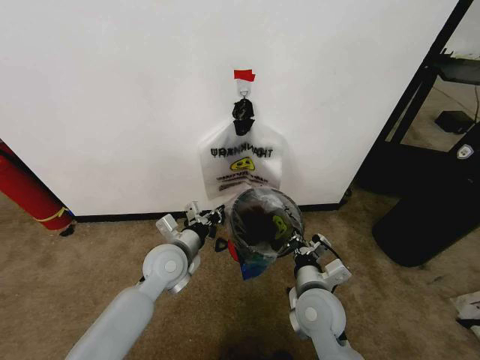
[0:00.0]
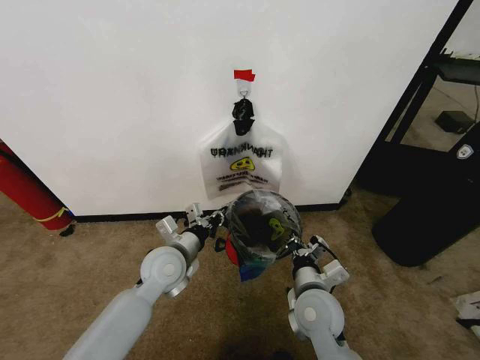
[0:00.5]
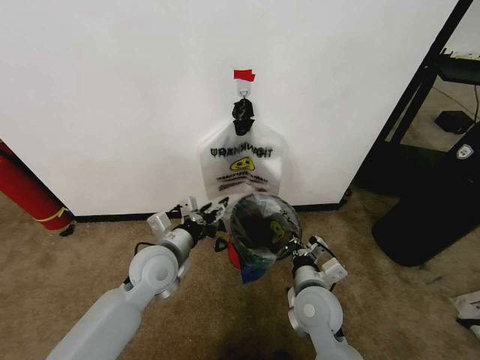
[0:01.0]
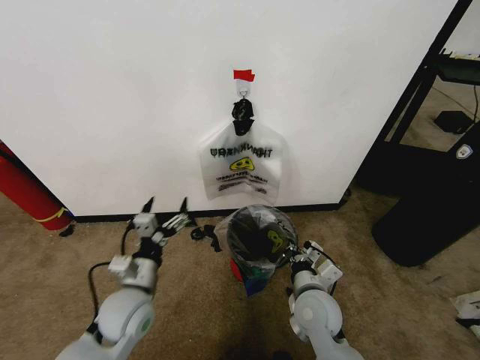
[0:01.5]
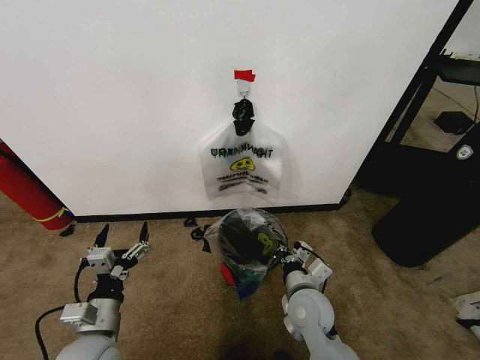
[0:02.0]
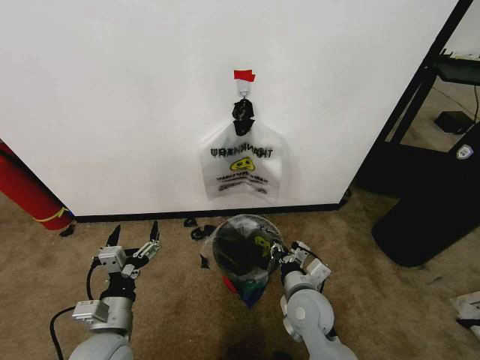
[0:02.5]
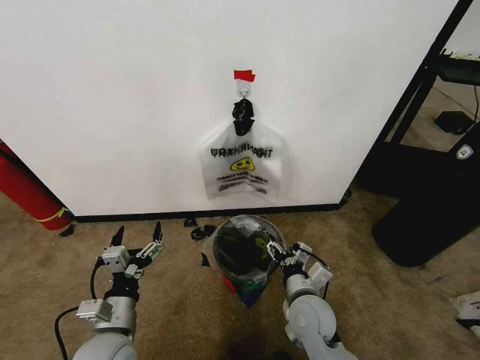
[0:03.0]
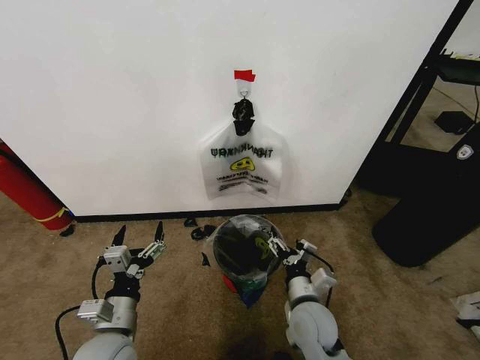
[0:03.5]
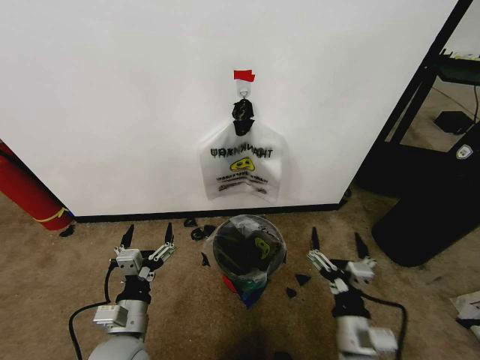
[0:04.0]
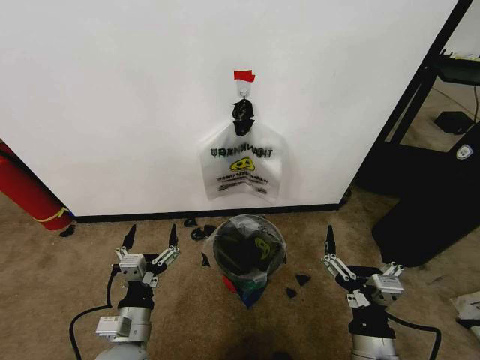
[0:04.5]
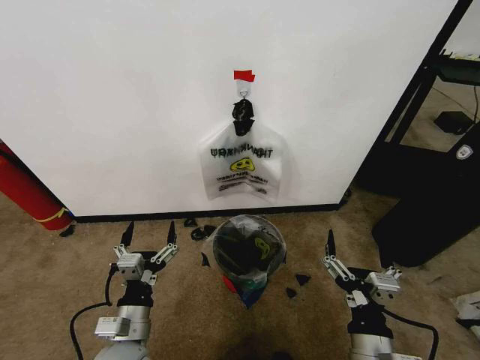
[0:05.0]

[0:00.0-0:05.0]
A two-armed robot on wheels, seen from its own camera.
Task of the whole recording: Pick up the garbage bag from the wall and place it over the trash bin.
0:00.0 to 0:02.5: The left gripper moves backward and to the left, some 20 cm, and opens up.
0:02.5 to 0:05.0: The right gripper is displaced backward by roughly 15 cm, and opens its fingers.

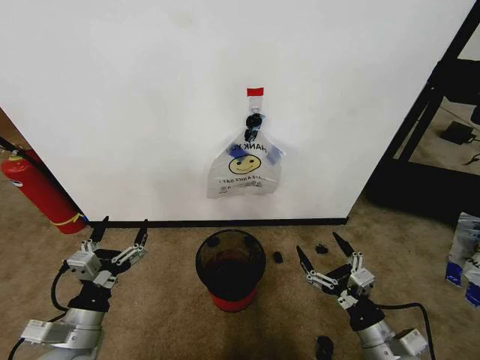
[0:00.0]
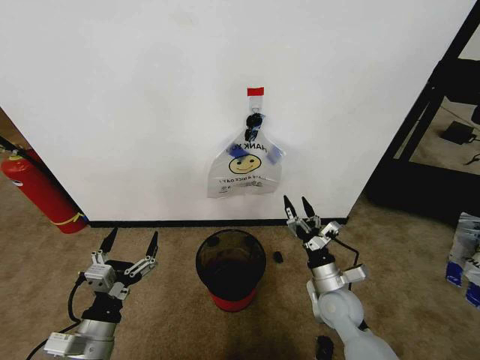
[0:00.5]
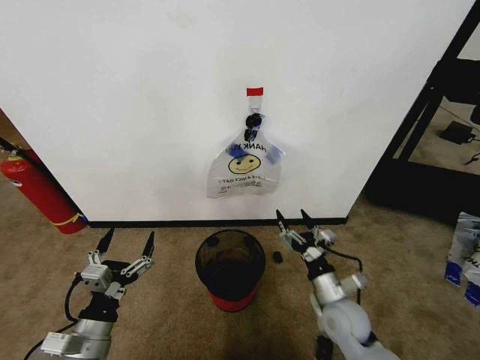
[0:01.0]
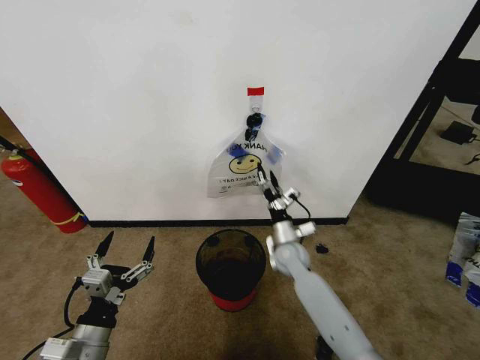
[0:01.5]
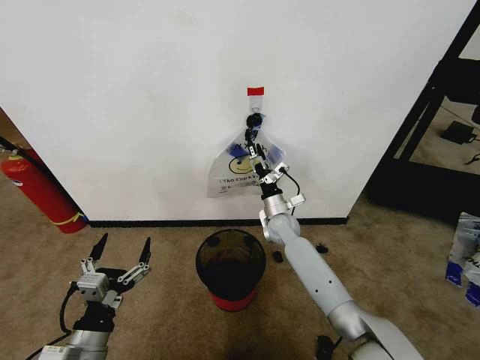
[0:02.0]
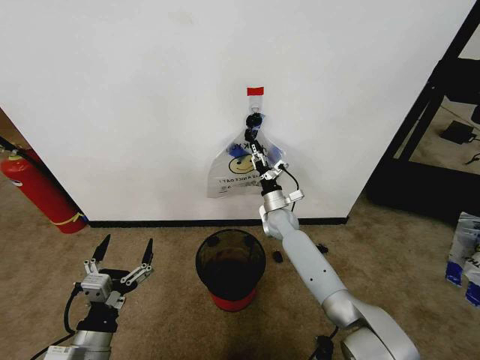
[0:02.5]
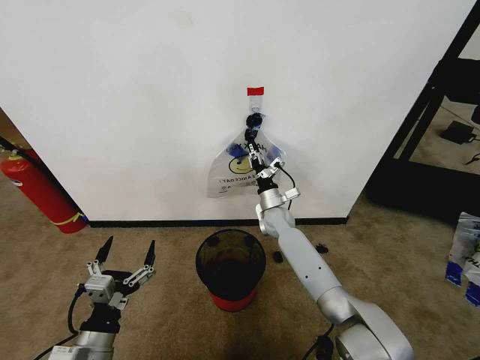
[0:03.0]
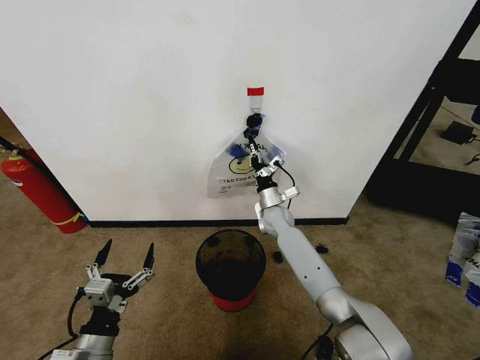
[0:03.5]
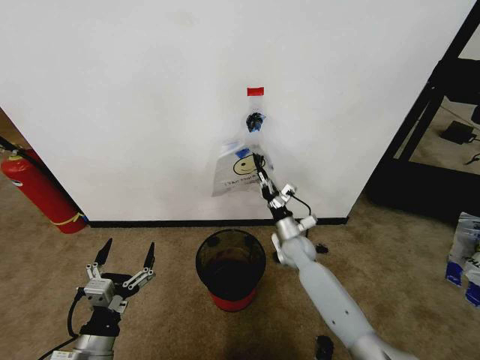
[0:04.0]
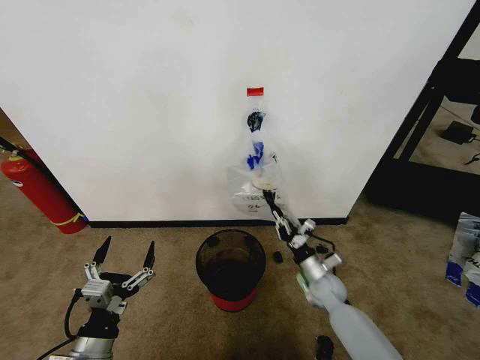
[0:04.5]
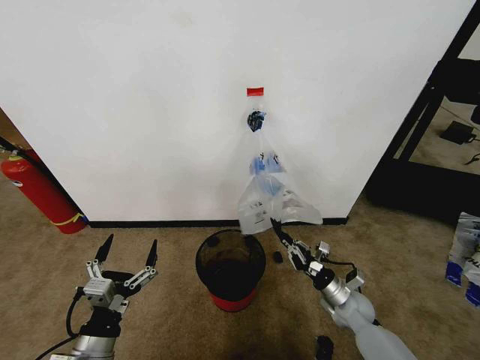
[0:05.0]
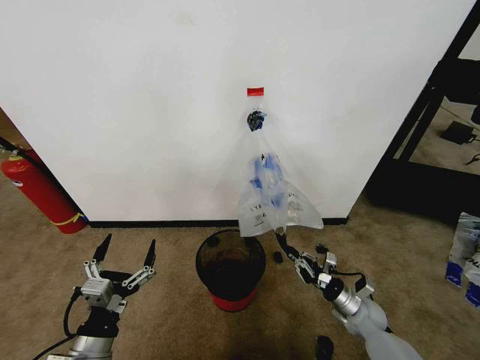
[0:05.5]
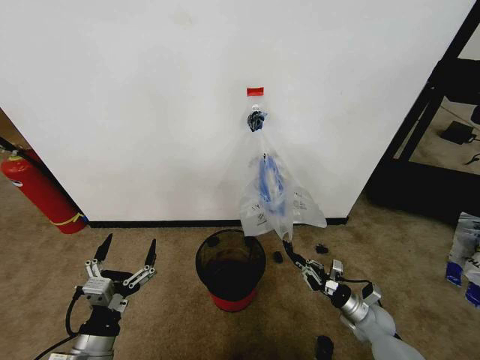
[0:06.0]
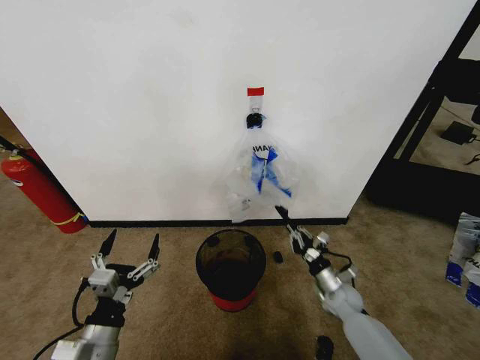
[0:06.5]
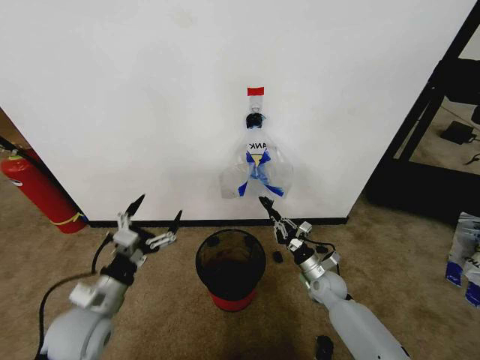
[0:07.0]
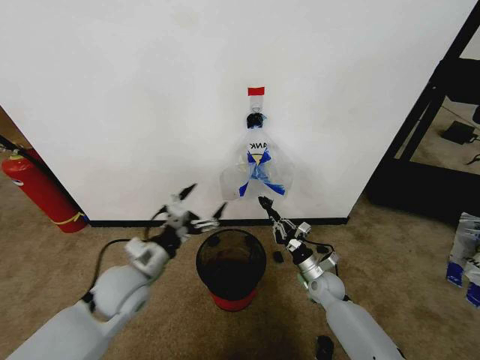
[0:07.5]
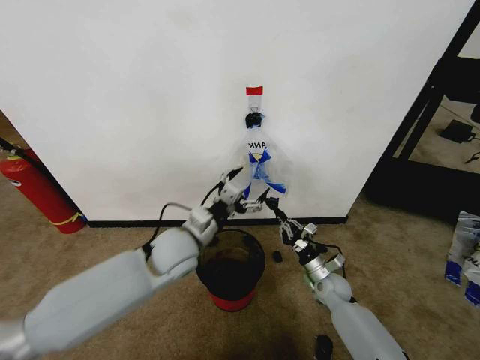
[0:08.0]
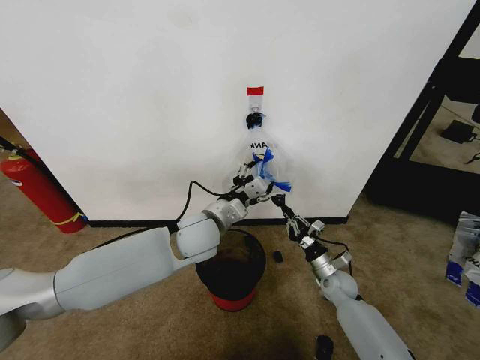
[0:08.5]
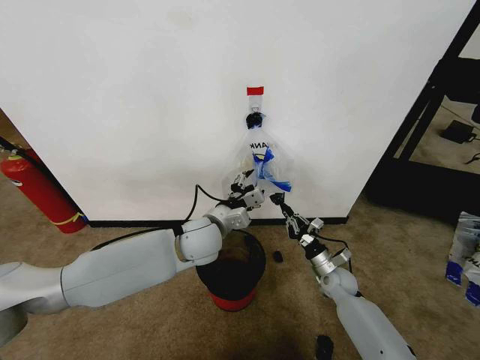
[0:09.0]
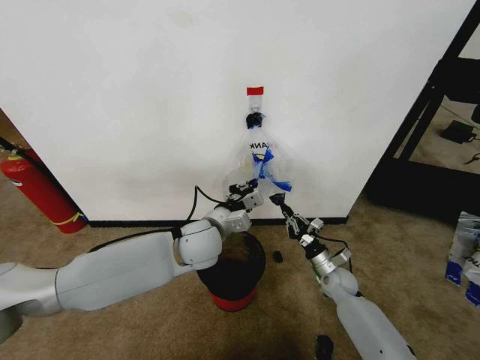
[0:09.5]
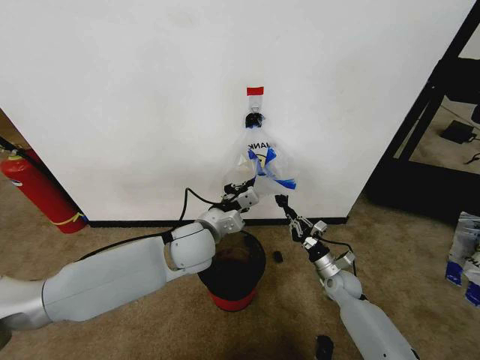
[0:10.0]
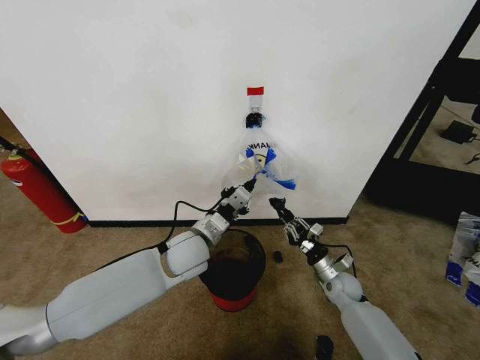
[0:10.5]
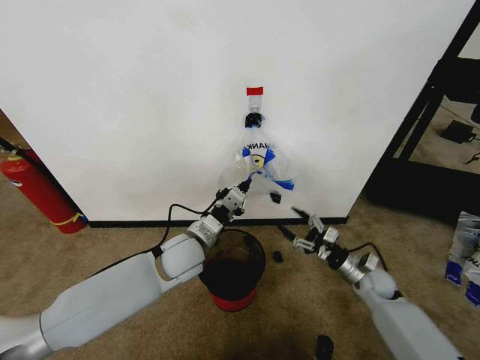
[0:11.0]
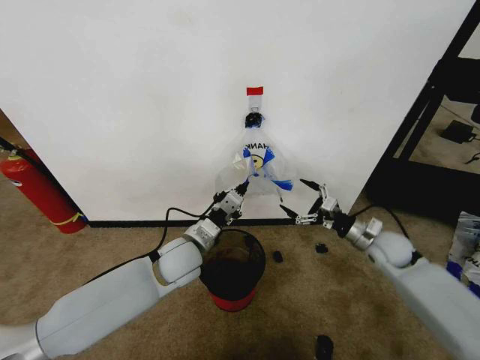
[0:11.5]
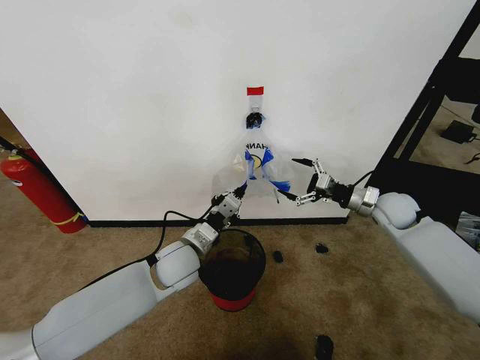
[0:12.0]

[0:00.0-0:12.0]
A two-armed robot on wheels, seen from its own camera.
Task of the whole recording: Pick up the garbage bag from the wall and place it over the trash bin.
0:02.0 to 0:04.0: The right gripper ends up roughly 5 cm from where it was, and closes up.
0:04.0 to 0:06.0: The right gripper moves to the right, backward and downward, about 30 cm.
0:06.0 to 0:08.0: The right gripper moves to the left and forward, approximately 15 cm. The left gripper is displaced forward and to the right by some 25 cm.
0:08.0 to 0:10.0: The left gripper closes.
0:10.0 to 0:12.0: The right gripper heads upward, covering about 25 cm, and opens its fingers; the left gripper shifts roughly 5 cm downward.

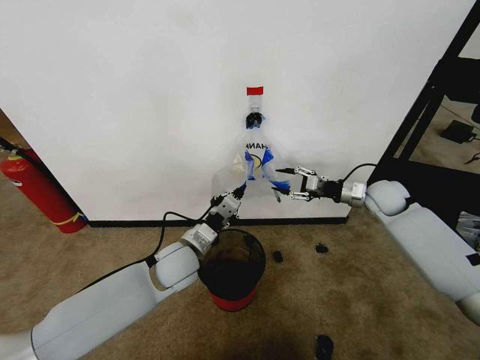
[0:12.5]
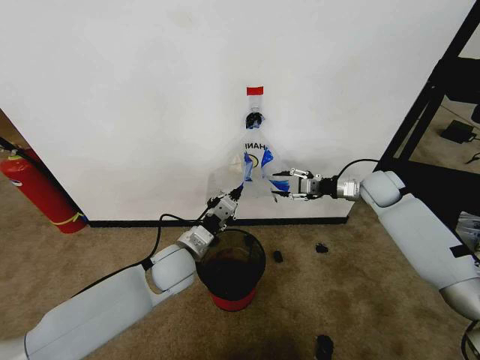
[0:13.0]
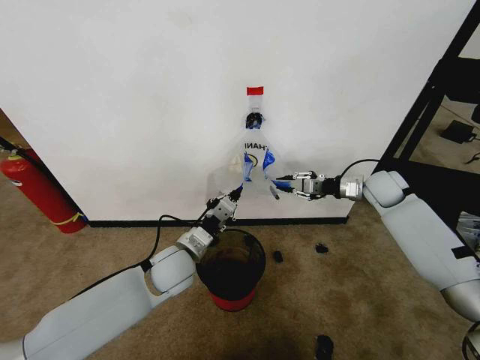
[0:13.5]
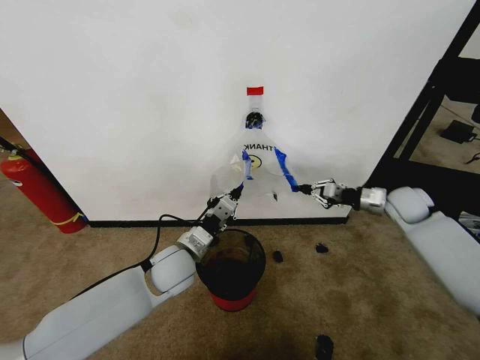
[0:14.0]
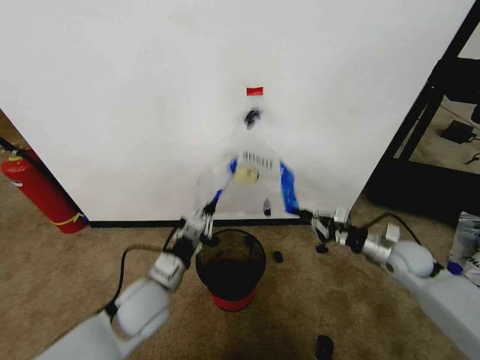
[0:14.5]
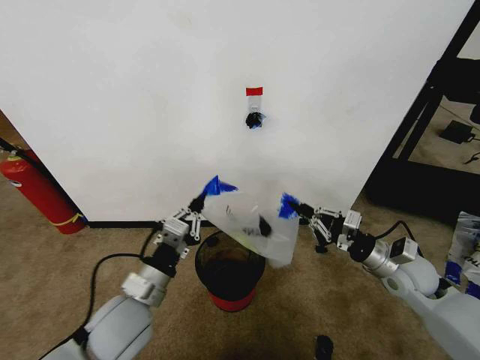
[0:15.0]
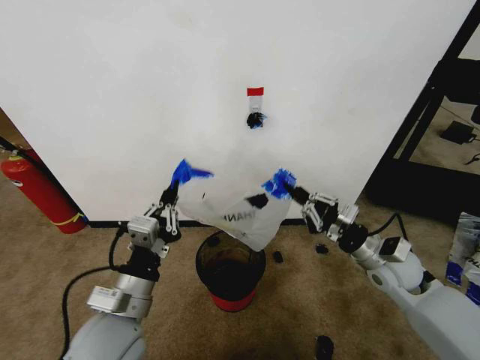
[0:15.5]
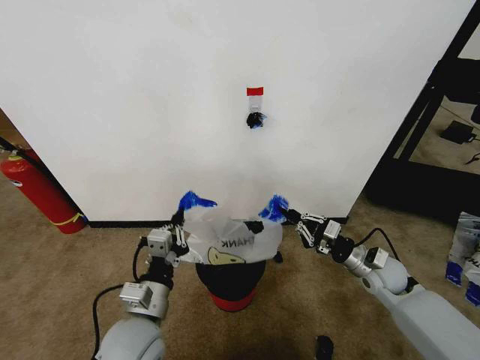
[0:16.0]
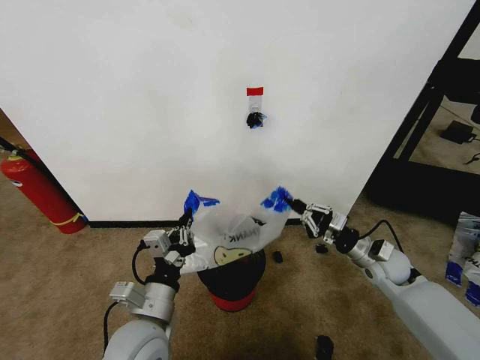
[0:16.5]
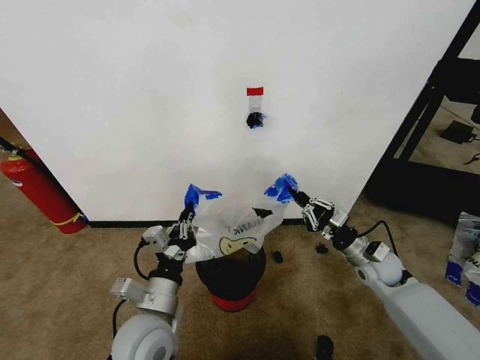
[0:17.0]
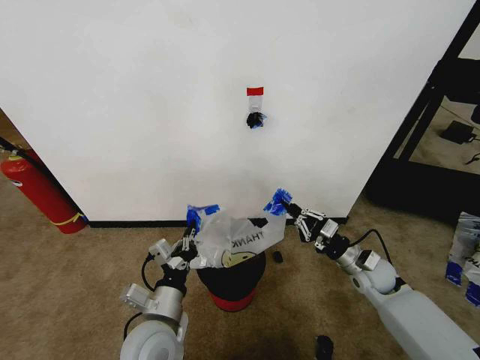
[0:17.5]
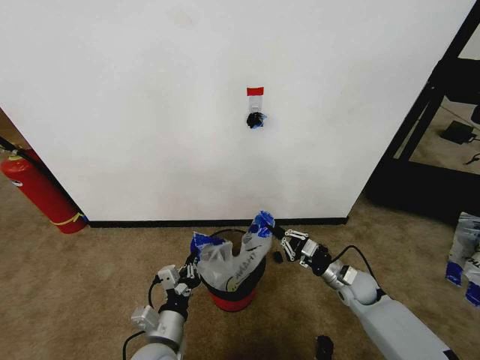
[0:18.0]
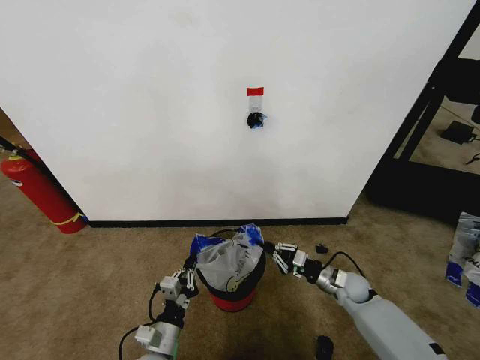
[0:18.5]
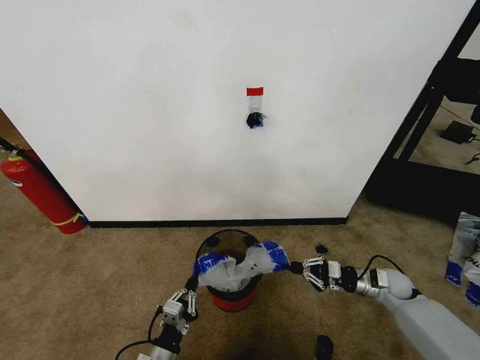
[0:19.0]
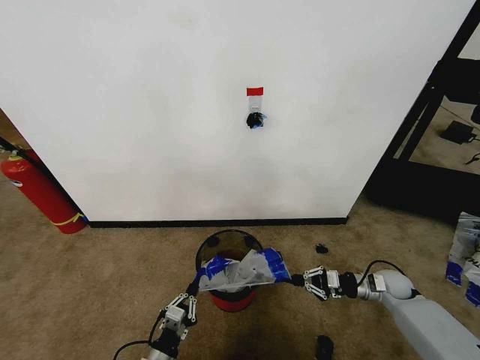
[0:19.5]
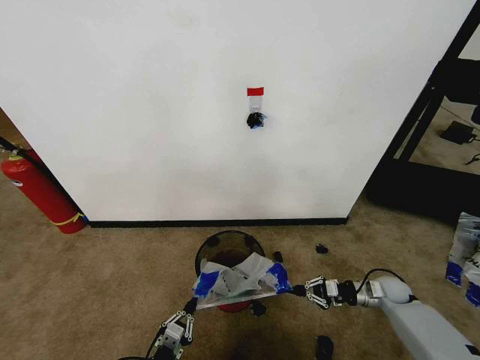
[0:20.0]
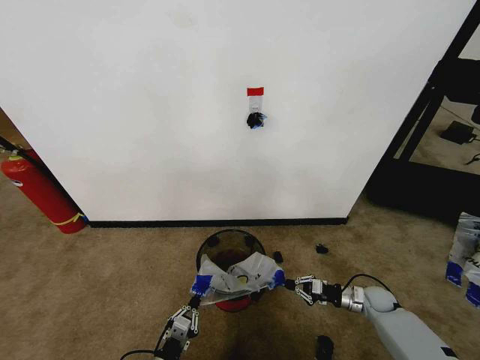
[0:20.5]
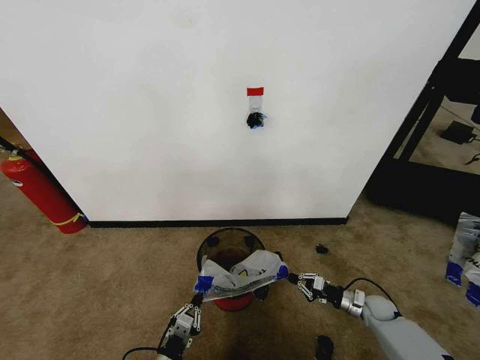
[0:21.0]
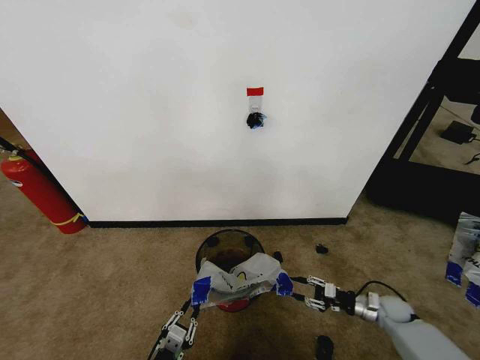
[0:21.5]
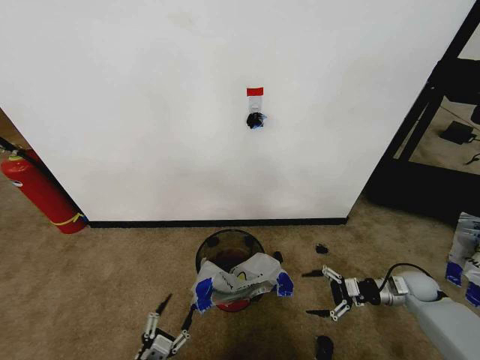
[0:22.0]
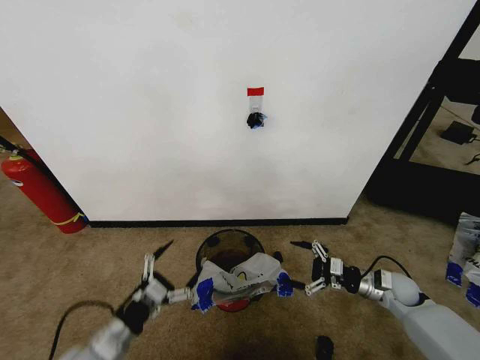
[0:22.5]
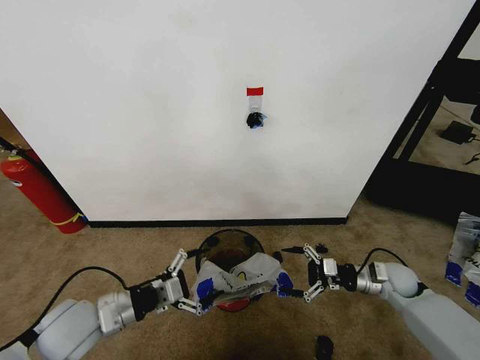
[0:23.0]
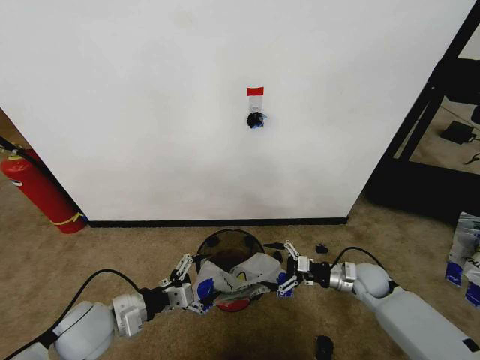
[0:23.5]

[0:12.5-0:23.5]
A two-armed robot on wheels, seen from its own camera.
Task of the whole recording: Pick up the garbage bag from the wall and place it over the trash bin.
0:12.5 to 0:14.5: The left gripper travels backward and to the left by roughly 10 cm, while the right gripper heads backward and downward, covering roughly 15 cm, and closes its fingers.
0:14.5 to 0:16.0: The left gripper shifts approximately 5 cm backward, and travels upward and back again, some 10 cm each way; the right gripper heads to the left, covering roughly 5 cm.
0:16.0 to 0:18.0: The two grippers go some 10 cm downward.
0:18.0 to 0:20.0: The right gripper shifts approximately 15 cm to the right and downward; the left gripper goes about 15 cm downward, backward and to the left.
0:20.0 to 0:21.5: The right gripper moves downward, roughly 5 cm, and opens its fingers.
0:21.5 to 0:23.5: The left gripper is displaced upward and forward by about 25 cm, and opens its fingers; the right gripper heads upward and to the left, covering about 15 cm, and opens its fingers.
